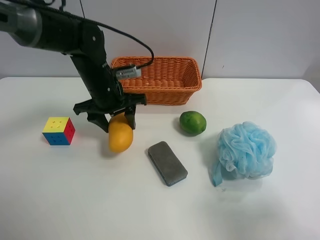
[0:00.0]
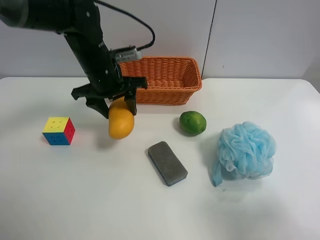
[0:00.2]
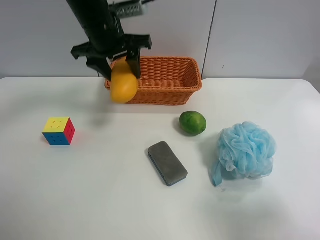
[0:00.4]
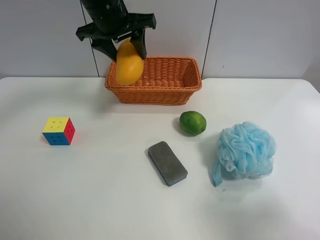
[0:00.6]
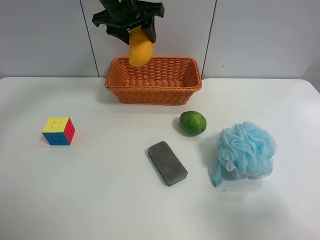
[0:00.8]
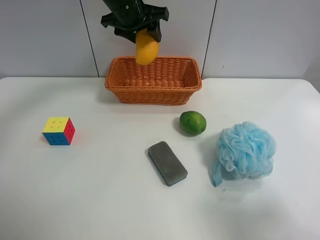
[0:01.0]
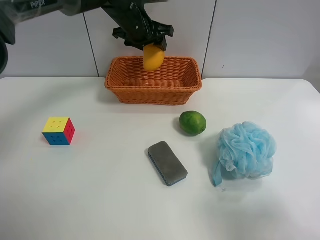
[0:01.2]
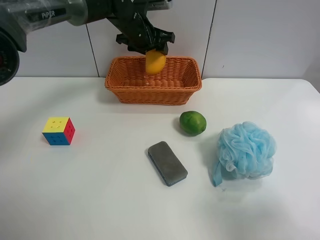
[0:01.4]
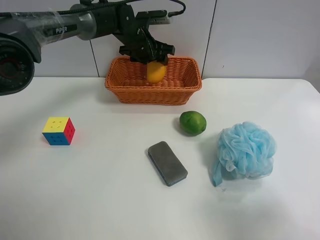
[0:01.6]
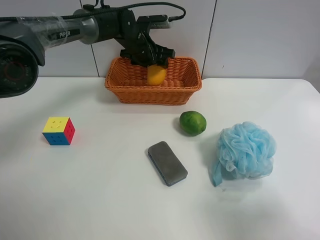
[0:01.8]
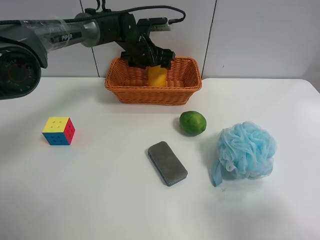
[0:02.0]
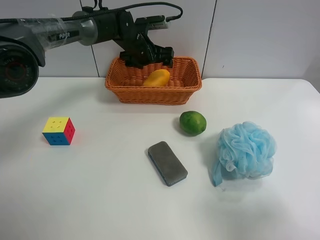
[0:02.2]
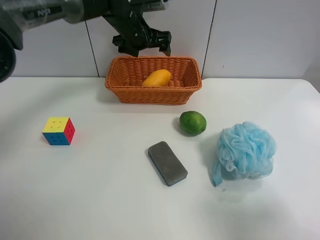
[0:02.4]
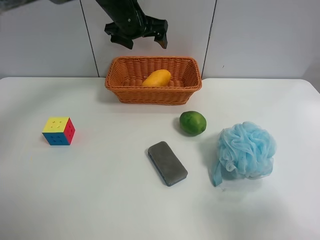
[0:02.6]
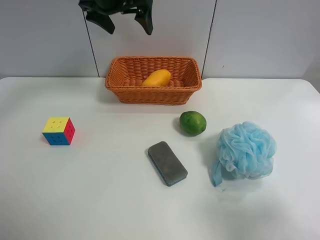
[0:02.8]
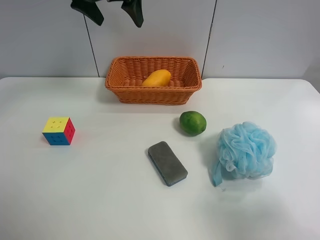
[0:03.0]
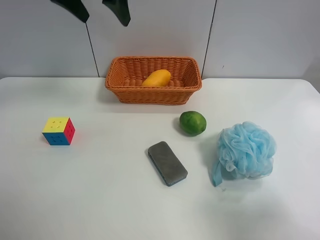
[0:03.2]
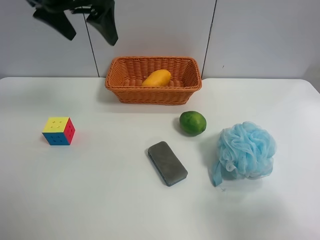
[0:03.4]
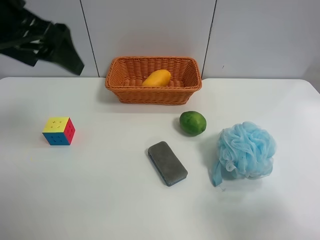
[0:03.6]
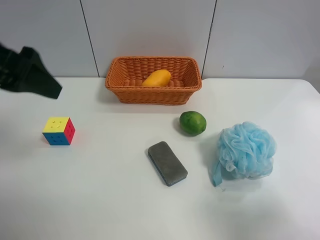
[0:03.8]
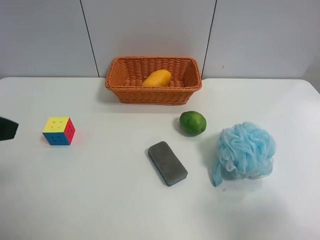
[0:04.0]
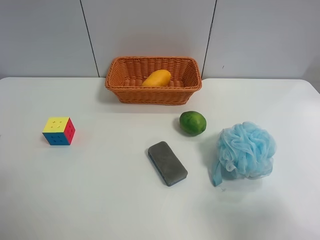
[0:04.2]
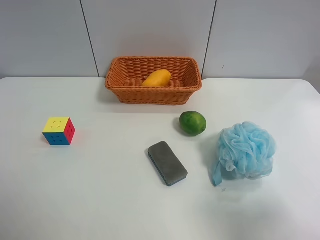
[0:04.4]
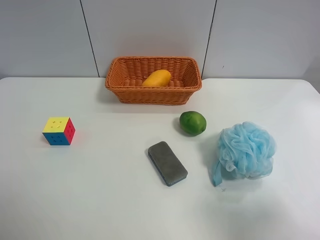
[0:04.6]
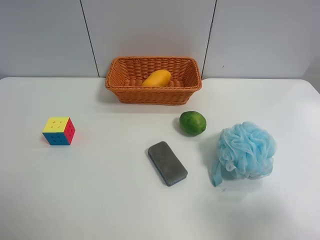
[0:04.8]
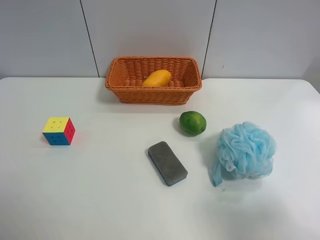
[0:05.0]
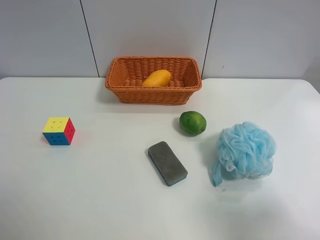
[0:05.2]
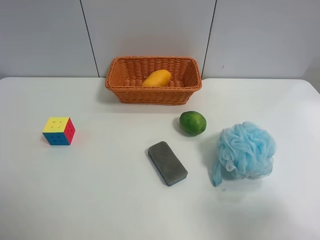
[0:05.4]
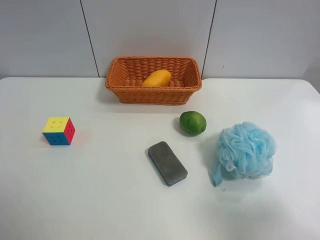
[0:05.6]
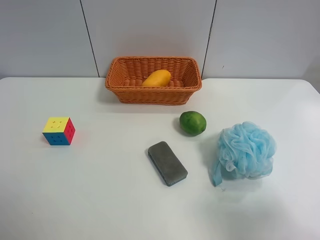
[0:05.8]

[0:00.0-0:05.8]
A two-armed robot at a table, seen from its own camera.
Task of the whole recording: use the left gripper to grab items from the table and place them in the basket.
Step, 0:00.0 to 0:02.2: Place the mango into the basket with the left gripper.
0:00.0 to 0:01.4: The left gripper heads forward, covering some 15 cm.
0:01.4 to 0:02.8: The left gripper heads upward, backward and to the left, covering approximately 15 cm, and opens.
0:02.8 to 0:04.4: The left gripper shifts roughly 40 cm backward and to the left.
